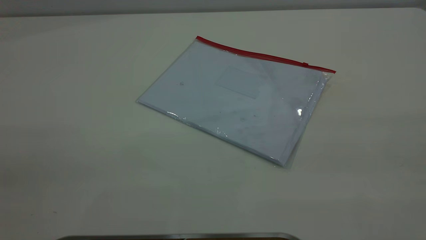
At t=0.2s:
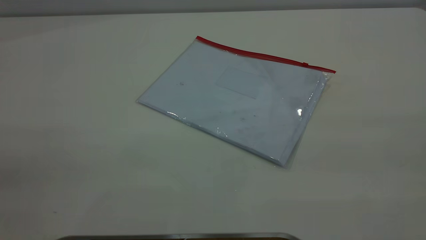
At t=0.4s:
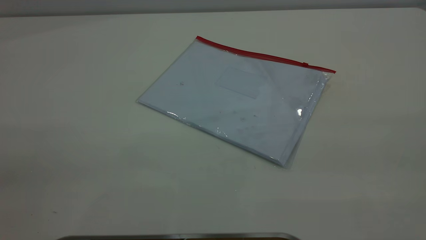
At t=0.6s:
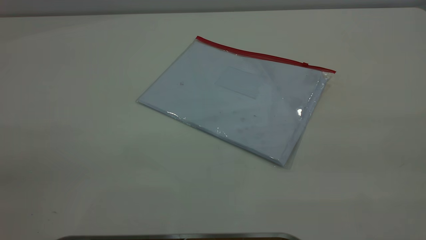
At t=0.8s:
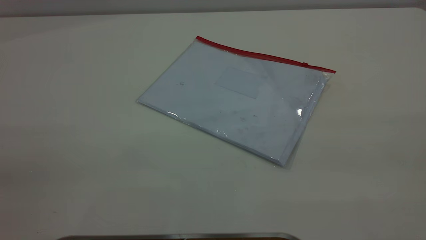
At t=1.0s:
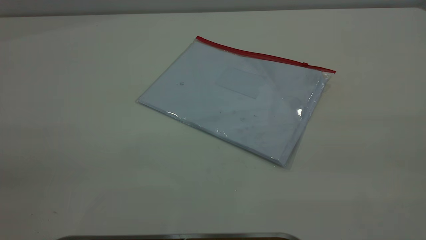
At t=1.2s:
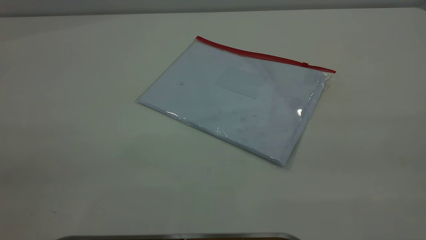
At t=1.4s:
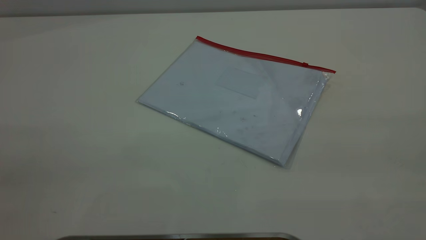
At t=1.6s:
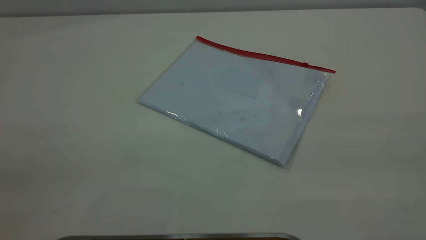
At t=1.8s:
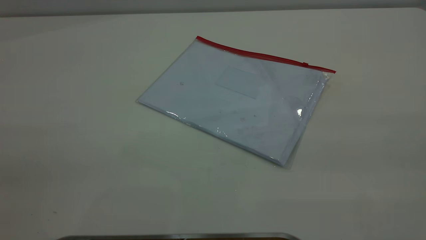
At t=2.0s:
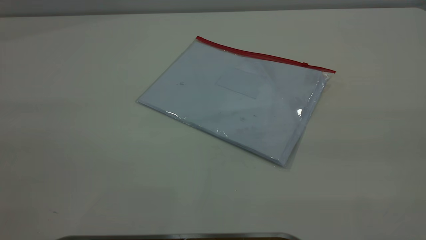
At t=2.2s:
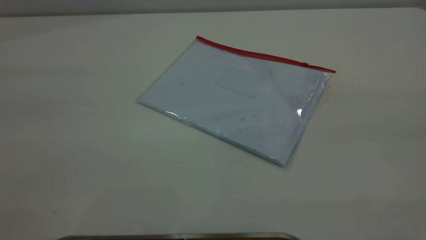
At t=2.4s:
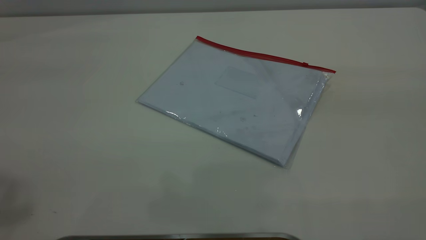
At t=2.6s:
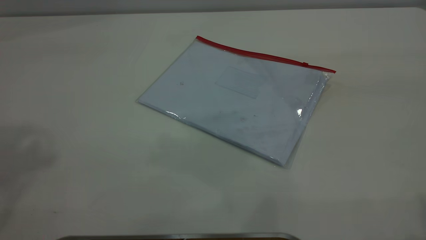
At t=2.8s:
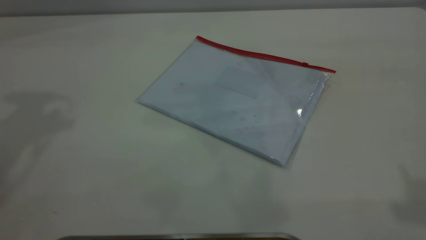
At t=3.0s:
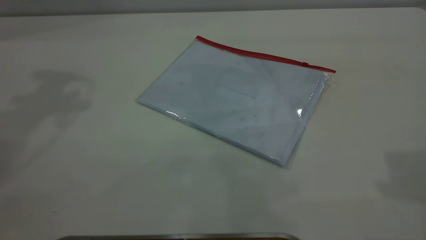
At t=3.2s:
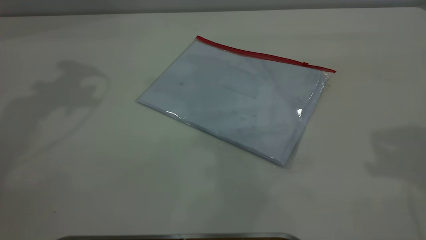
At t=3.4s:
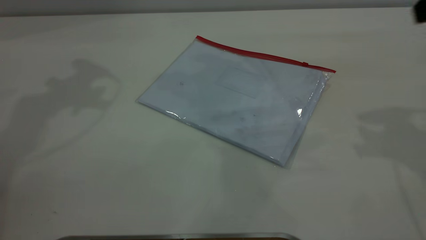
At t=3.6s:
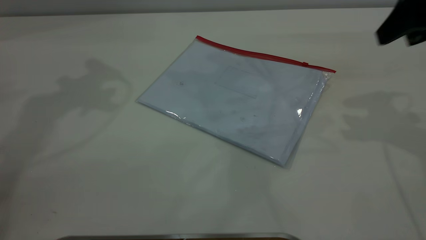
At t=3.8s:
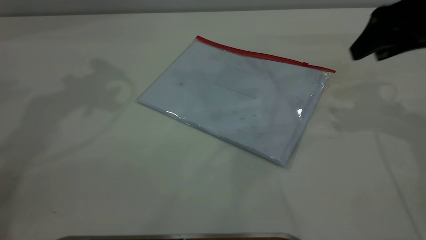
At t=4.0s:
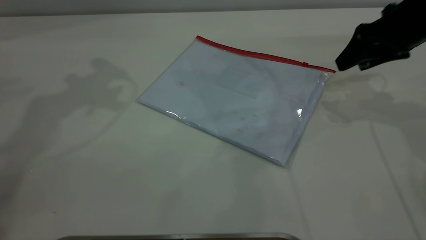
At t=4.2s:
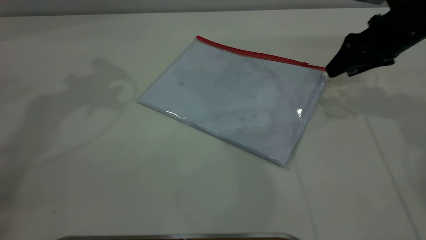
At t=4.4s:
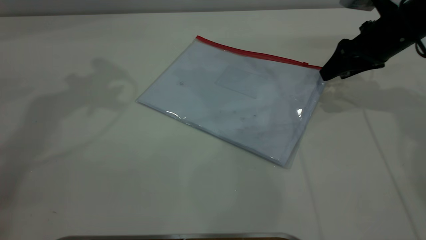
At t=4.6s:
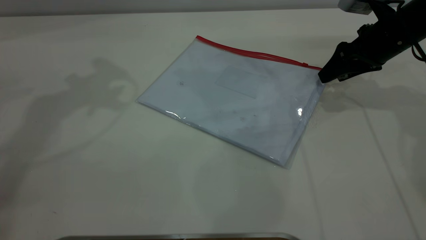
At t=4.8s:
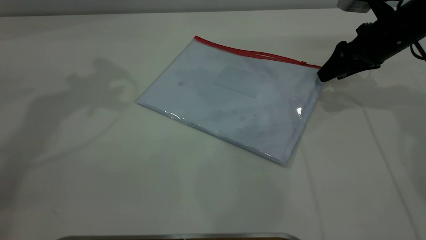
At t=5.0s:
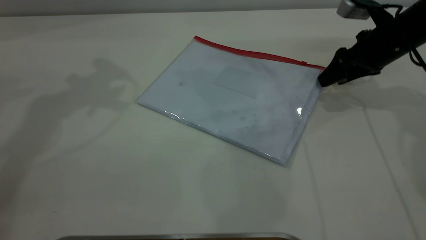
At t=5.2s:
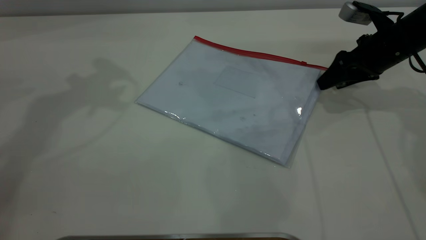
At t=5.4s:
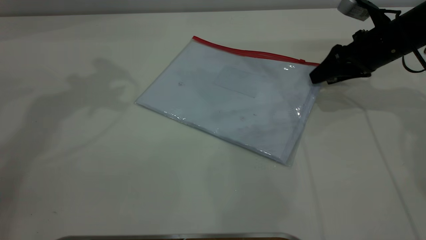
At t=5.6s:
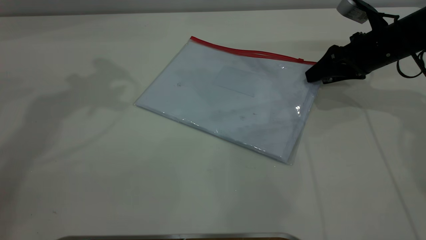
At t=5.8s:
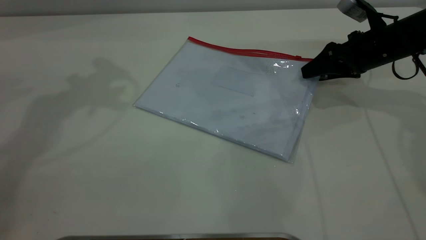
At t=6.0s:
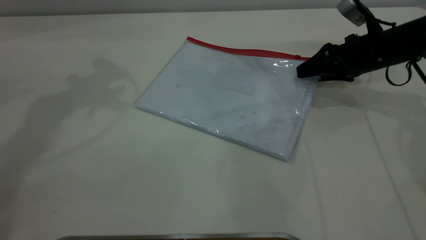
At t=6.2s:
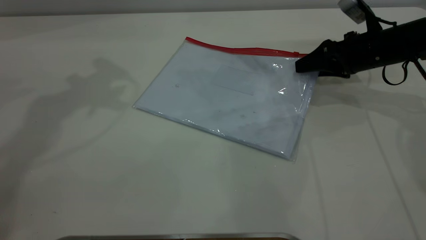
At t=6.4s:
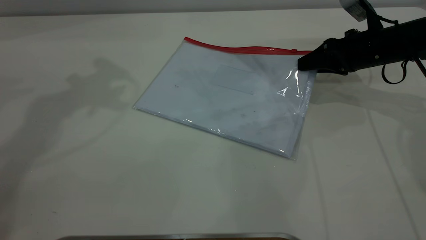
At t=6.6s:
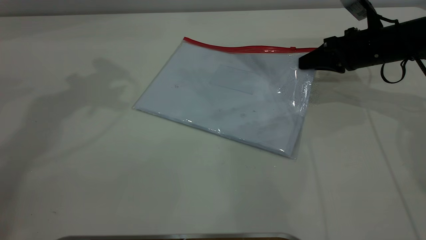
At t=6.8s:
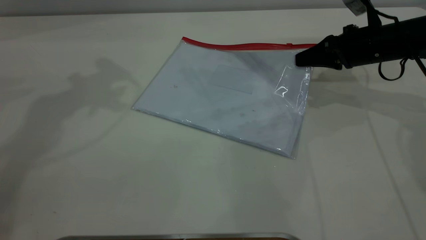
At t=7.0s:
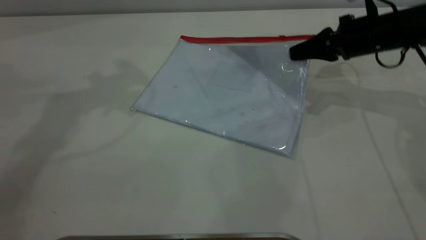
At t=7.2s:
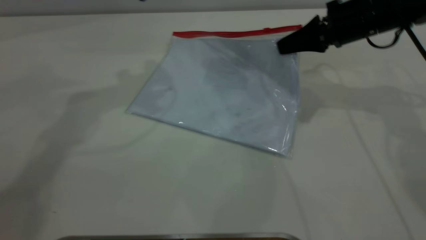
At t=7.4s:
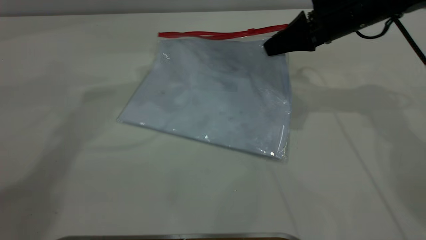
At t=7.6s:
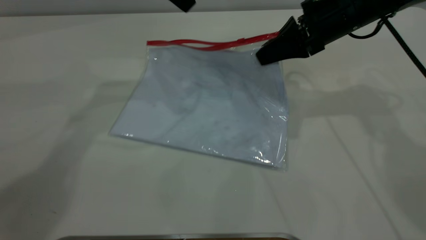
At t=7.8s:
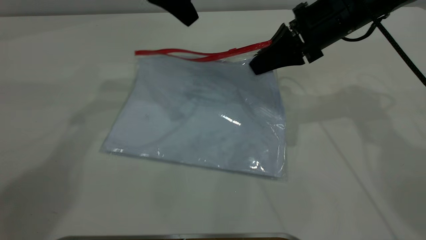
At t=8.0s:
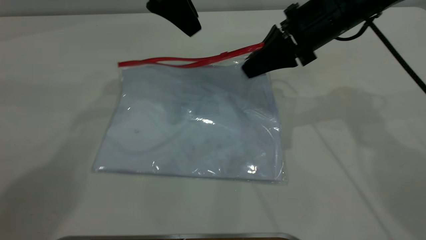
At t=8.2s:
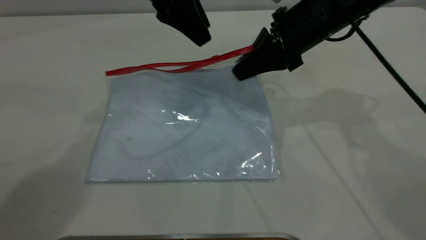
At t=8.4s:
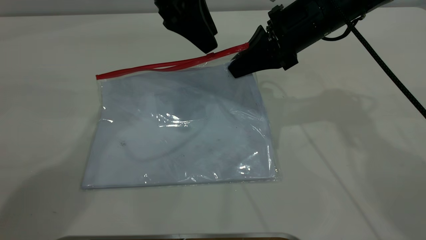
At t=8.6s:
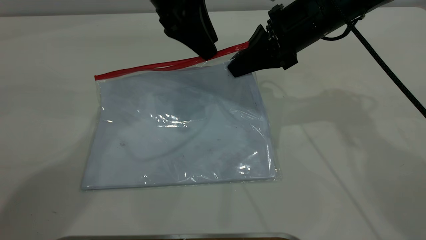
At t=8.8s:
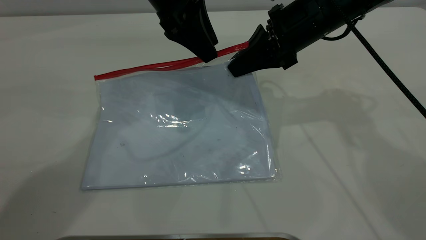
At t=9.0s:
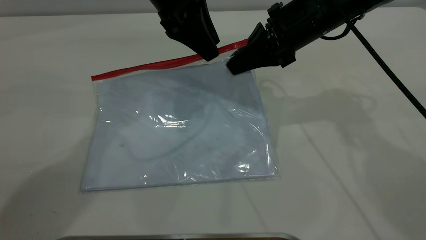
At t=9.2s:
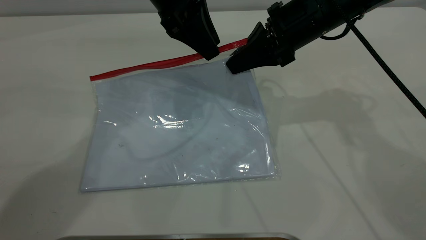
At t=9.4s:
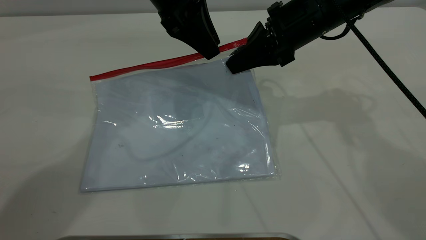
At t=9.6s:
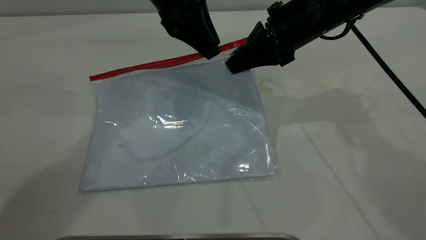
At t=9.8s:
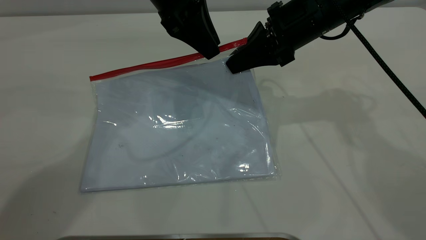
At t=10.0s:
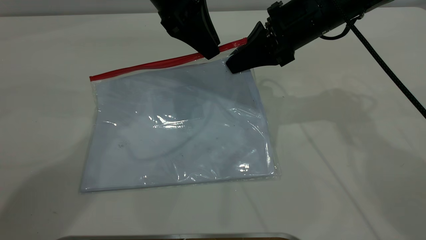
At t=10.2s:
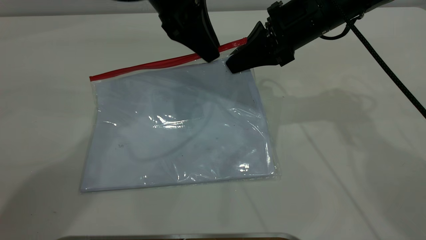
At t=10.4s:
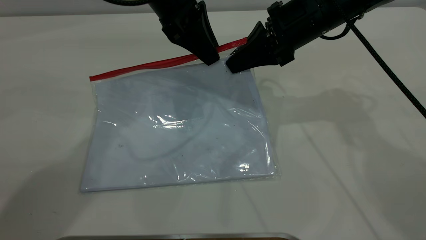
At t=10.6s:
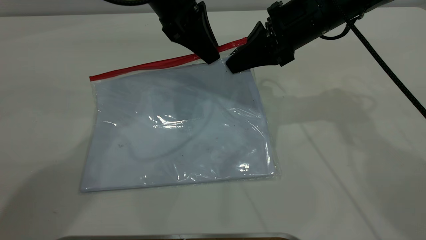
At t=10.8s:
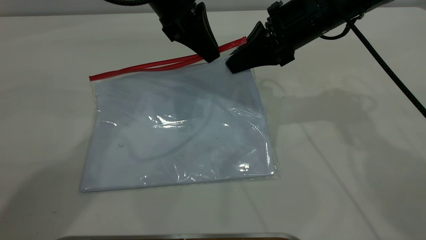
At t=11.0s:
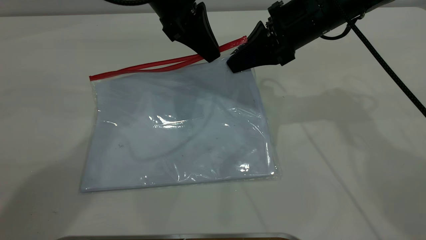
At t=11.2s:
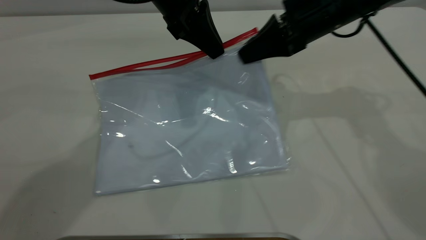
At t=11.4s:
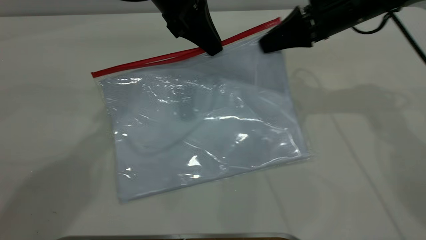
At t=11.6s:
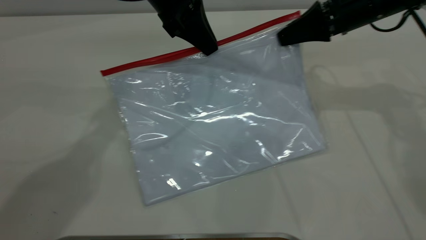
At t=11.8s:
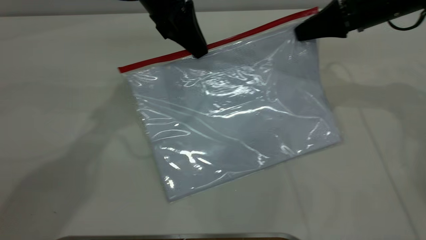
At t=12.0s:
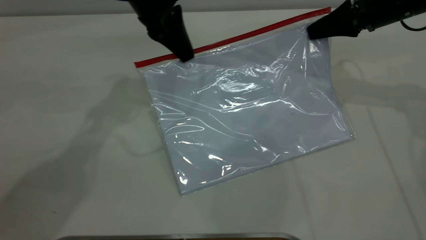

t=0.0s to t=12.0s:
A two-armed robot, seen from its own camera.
Step, t=0.0s to t=7.2s: Pick up the transparent plastic bag with the right gripper.
t=0.0s to t=1.6s: Both grippers stay about where they are.
t=3.0s to t=4.4s: The right gripper is displaced downward and forward by approximately 35 cm.
t=4.4s to t=6.0s: The grippers move only a little.
t=6.0s to t=7.6s: The left gripper moves to the right and downward, approximately 15 cm. Meanwhile the right gripper heads to the left and upward, covering roughly 15 cm, and closes up.
t=7.6s to t=9.0s: The left gripper moves about 5 cm.
t=9.0s to t=10.4s: The two grippers keep their place.
t=10.4s to t=12.0s: The left gripper closes; the right gripper is displaced to the right by approximately 15 cm.

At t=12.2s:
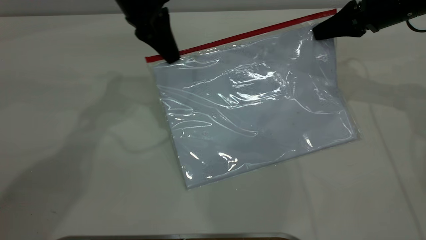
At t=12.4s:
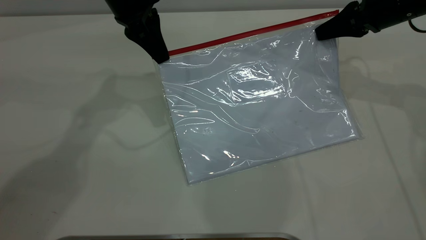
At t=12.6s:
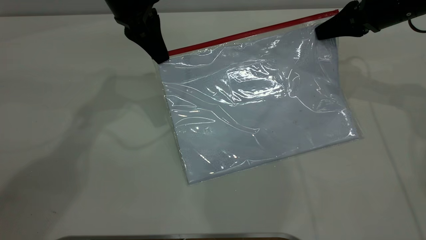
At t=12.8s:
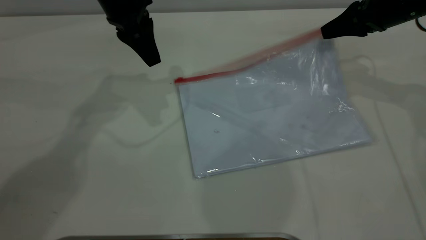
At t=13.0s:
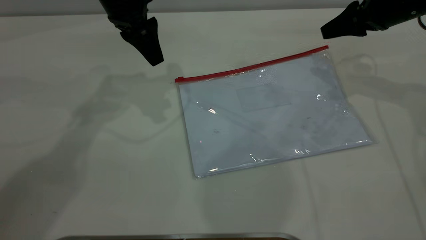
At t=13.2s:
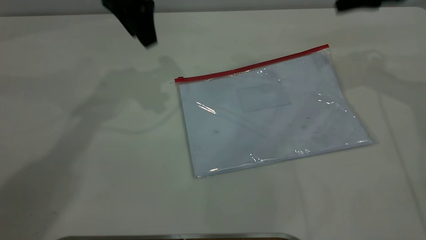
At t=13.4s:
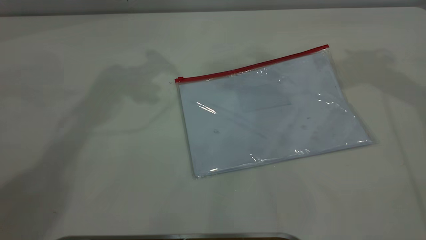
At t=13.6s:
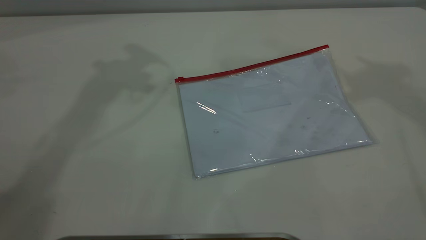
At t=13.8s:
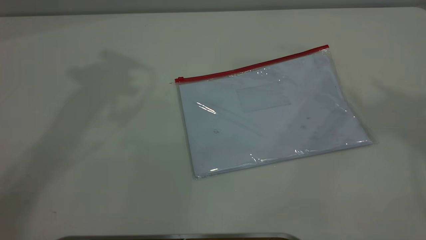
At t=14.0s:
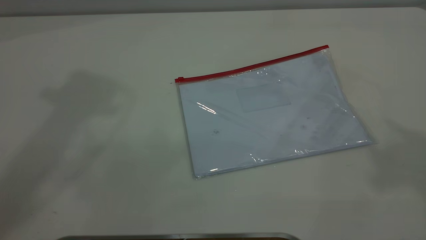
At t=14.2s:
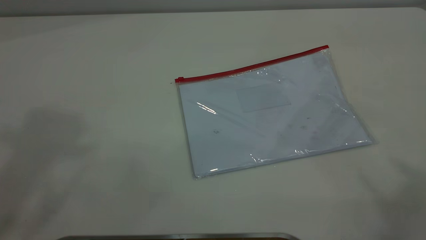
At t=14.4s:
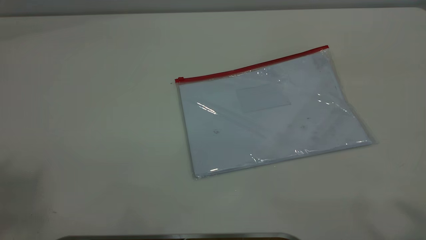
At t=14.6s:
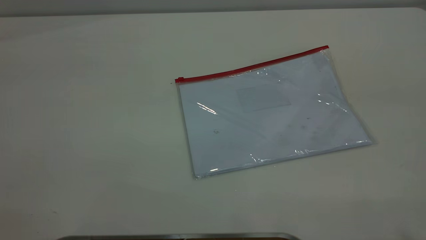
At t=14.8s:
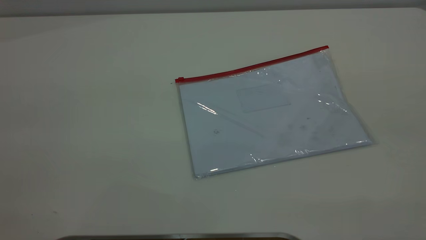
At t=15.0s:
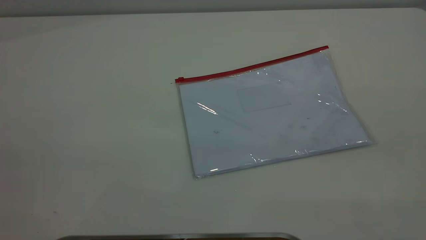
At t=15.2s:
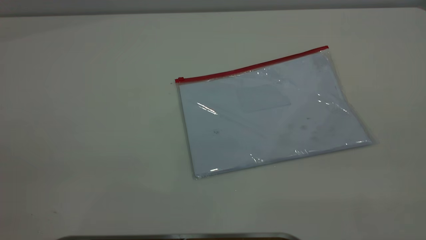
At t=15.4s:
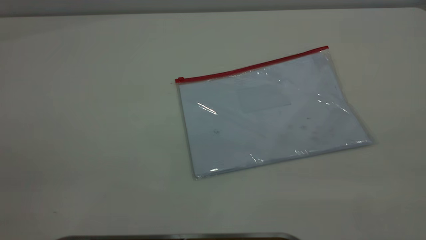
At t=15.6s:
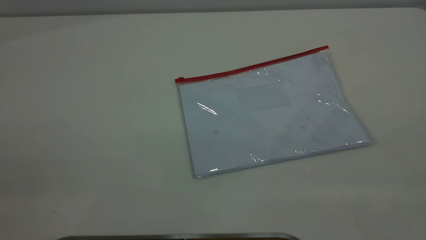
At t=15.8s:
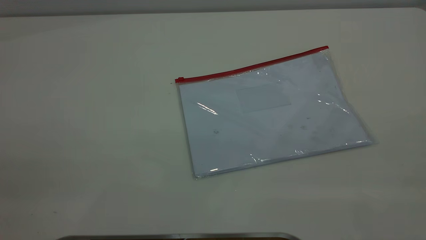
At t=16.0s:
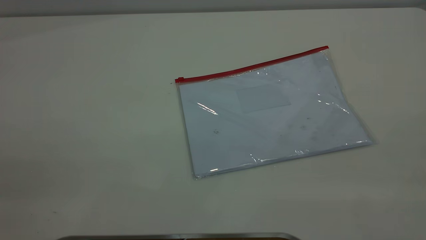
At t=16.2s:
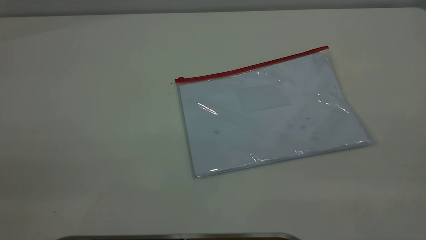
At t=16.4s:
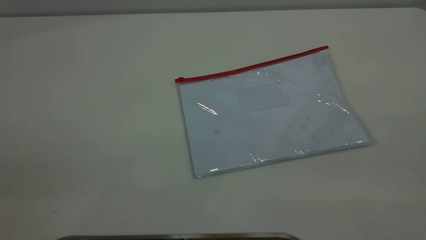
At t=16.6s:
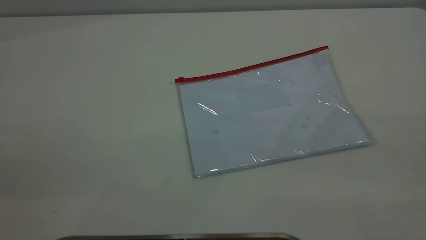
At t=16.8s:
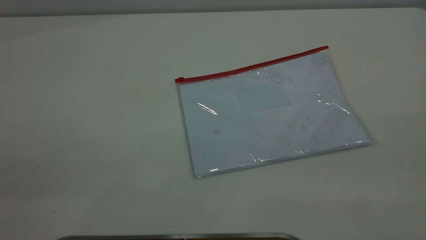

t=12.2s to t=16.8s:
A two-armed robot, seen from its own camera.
Step, t=12.8s to t=13.6s: Place the transparent plastic bag.
t=12.2s to t=13.8s: The right gripper heads upward and backward, covering roughly 40 cm, and opens up; the left gripper is displaced upward by roughly 30 cm, and opens its fingers.
